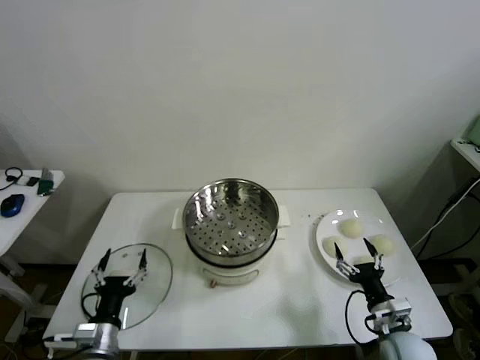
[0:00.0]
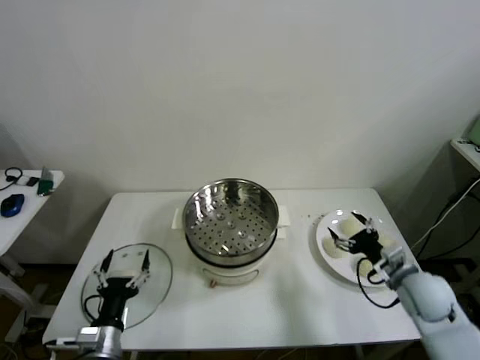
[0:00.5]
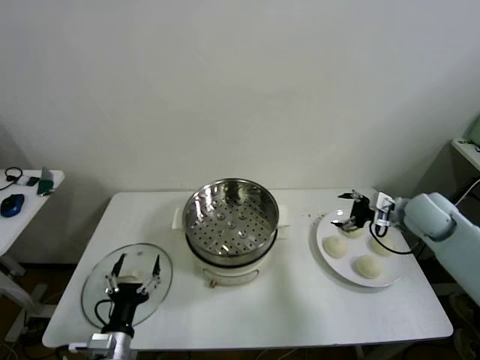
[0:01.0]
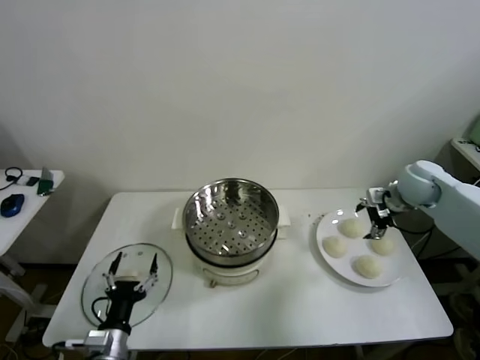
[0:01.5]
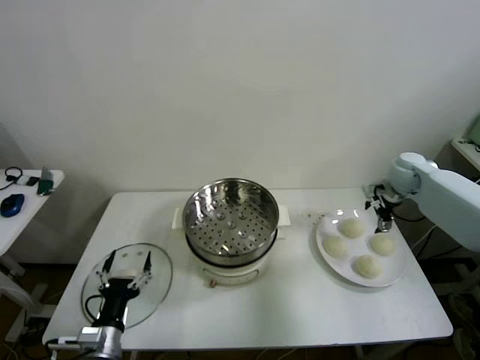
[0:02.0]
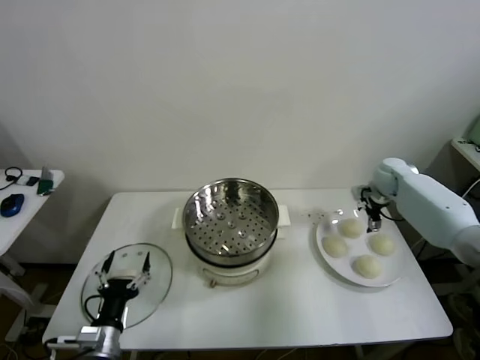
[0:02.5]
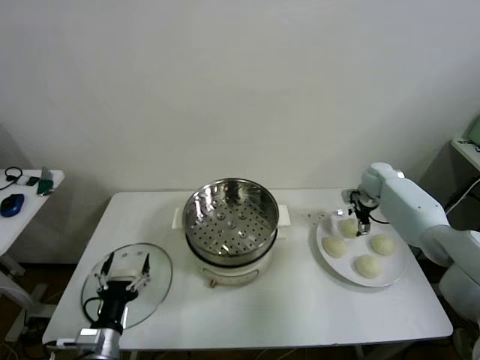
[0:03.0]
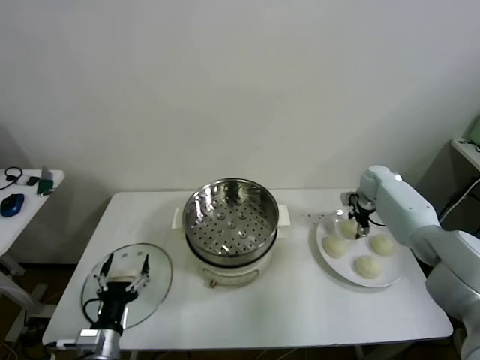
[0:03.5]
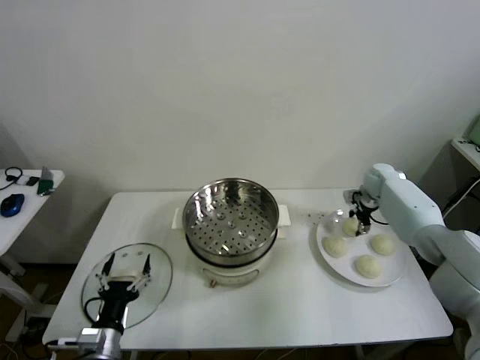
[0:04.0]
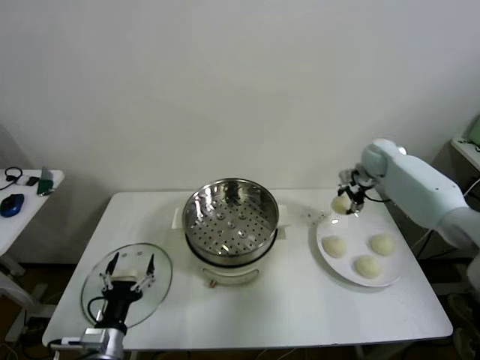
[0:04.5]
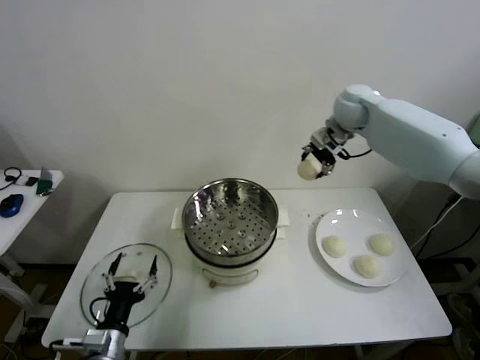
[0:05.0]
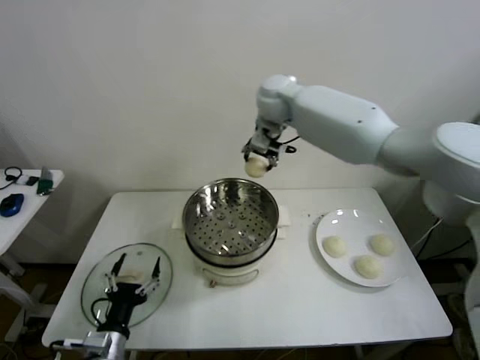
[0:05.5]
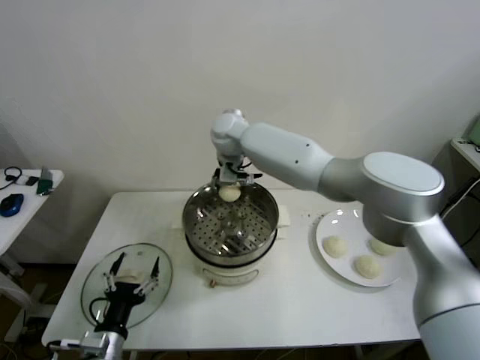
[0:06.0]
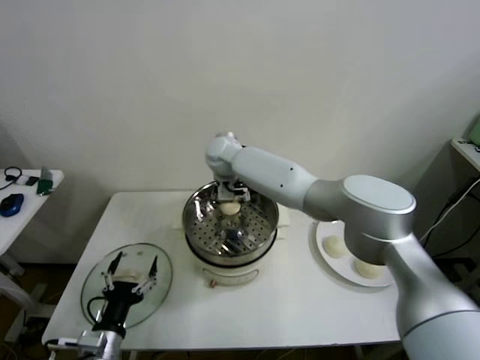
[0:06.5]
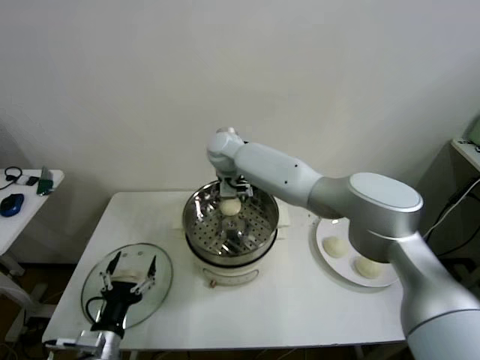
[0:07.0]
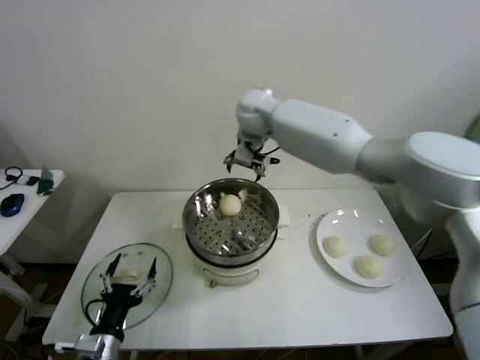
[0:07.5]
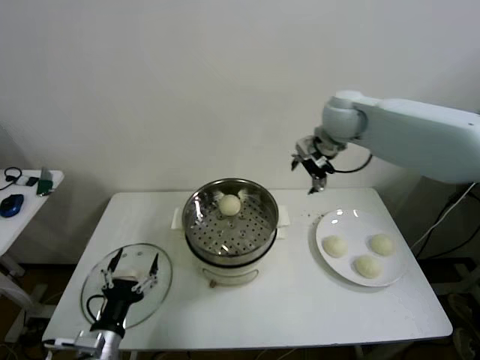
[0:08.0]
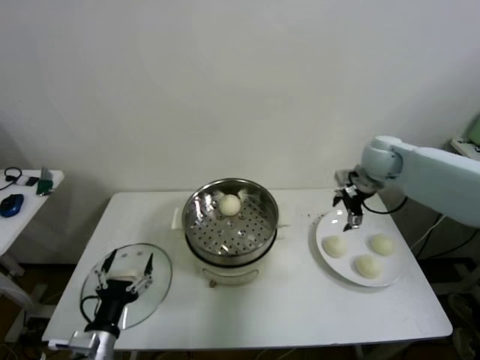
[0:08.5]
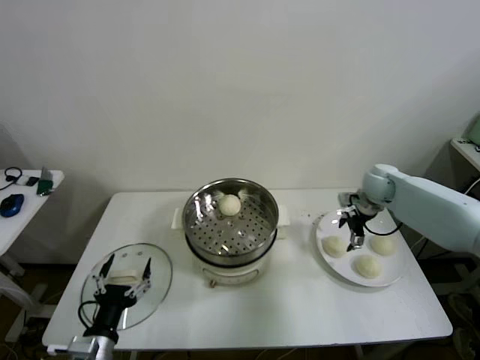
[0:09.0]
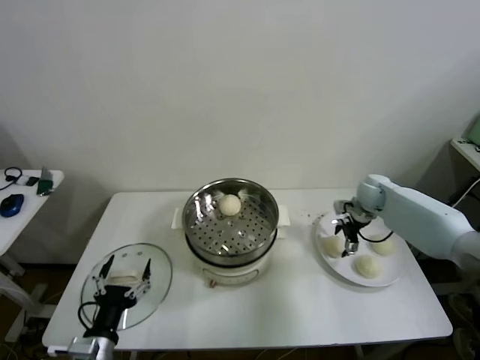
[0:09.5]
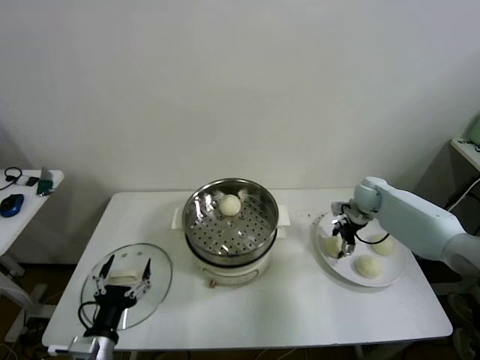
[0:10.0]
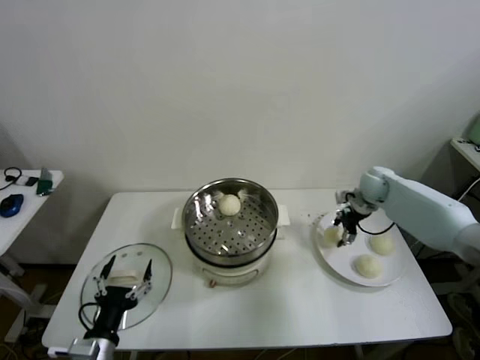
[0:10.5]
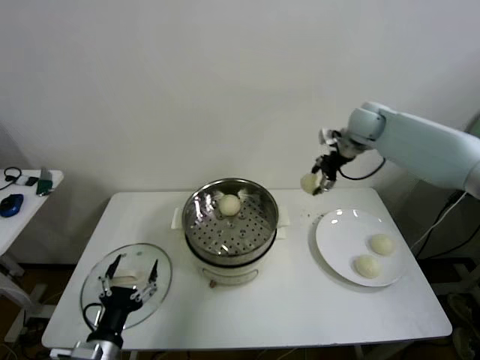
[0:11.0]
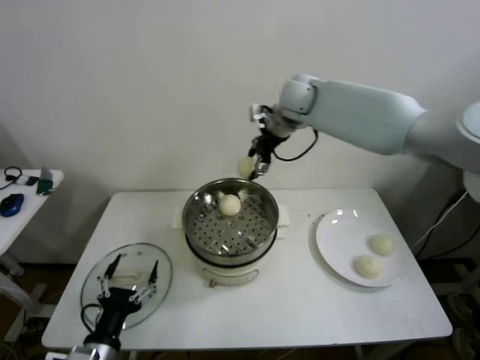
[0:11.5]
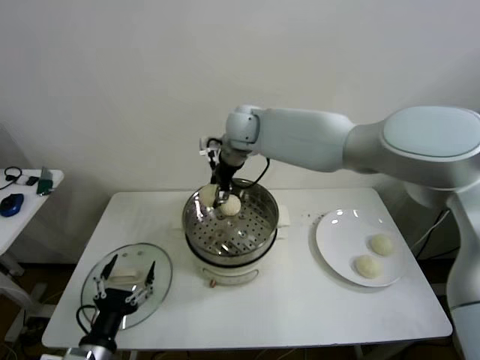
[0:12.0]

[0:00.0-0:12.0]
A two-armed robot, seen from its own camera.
Step, 0:00.0 to 0:03.5: Grasp the baozi in the plate with right gripper.
Step, 0:04.0 to 0:06.5: Place the baozi on the steamer with right gripper.
Step, 0:07.0 to 0:10.0: Grasp the baozi in the plate with right gripper.
0:02.0 to 0:04.0: The right gripper travels downward and forward by approximately 10 cm, and closes its fingers.
0:04.0 to 0:06.0: The right gripper is displaced to the left and upward by roughly 50 cm.
0:06.0 to 0:08.0: The right gripper moves to the right, roughly 25 cm, and opens its fingers.
0:08.0 to 0:10.0: The right gripper goes approximately 30 cm downward and to the right, and closes.
0:10.0 to 0:12.0: The right gripper moves to the left and upward, roughly 40 cm.

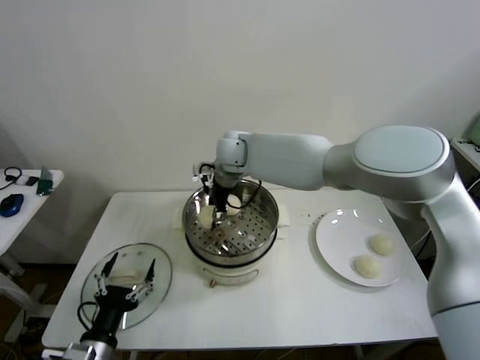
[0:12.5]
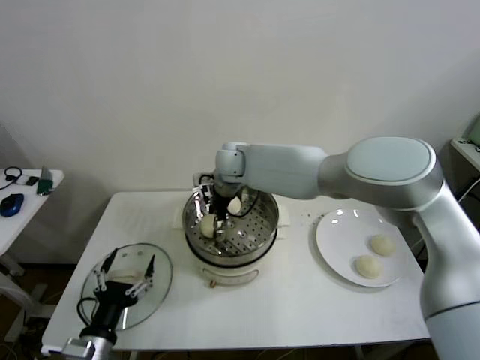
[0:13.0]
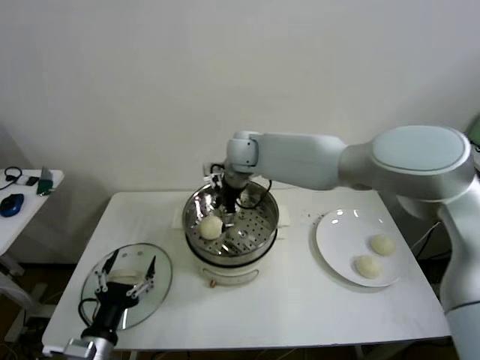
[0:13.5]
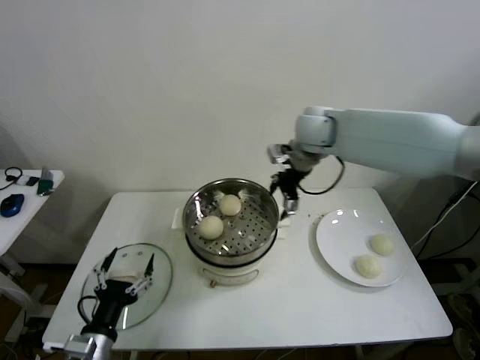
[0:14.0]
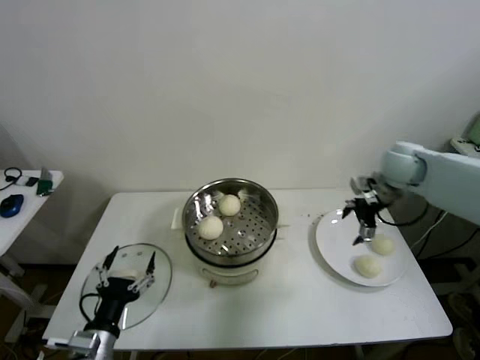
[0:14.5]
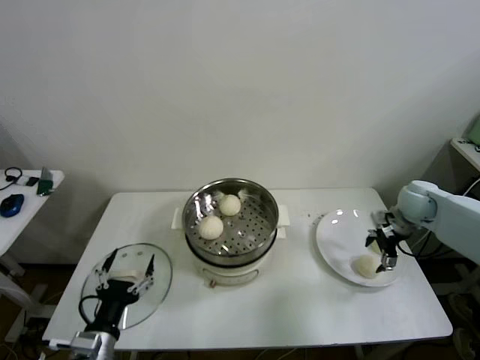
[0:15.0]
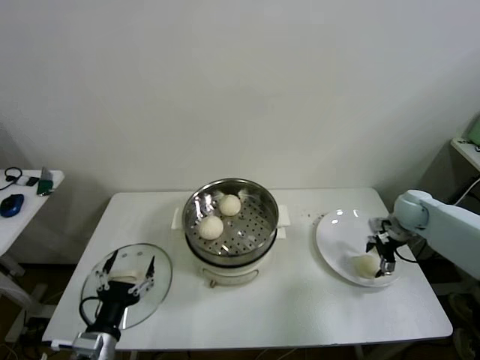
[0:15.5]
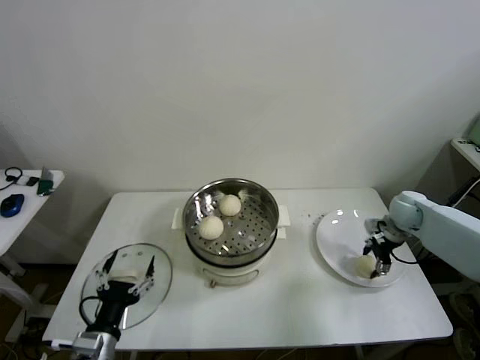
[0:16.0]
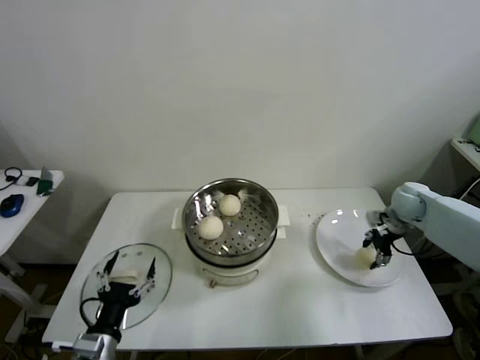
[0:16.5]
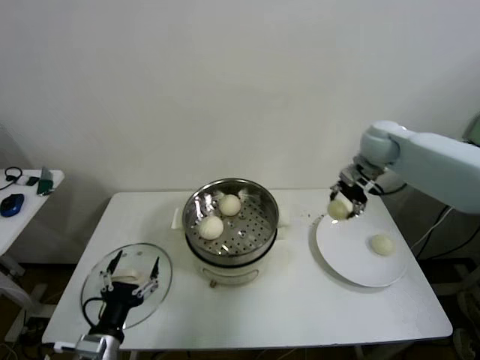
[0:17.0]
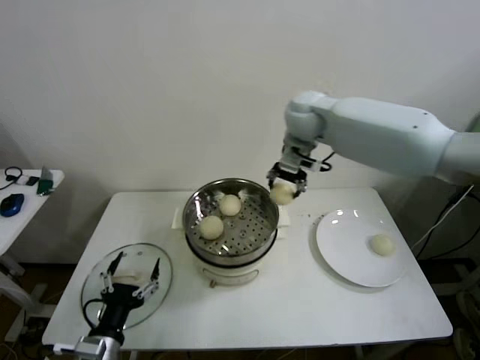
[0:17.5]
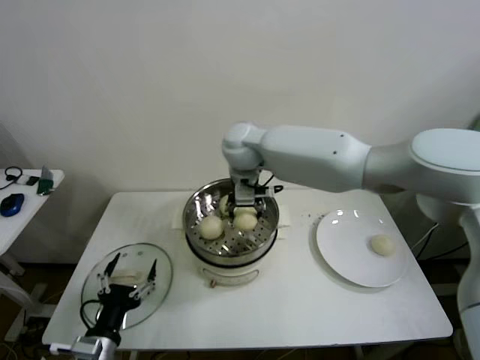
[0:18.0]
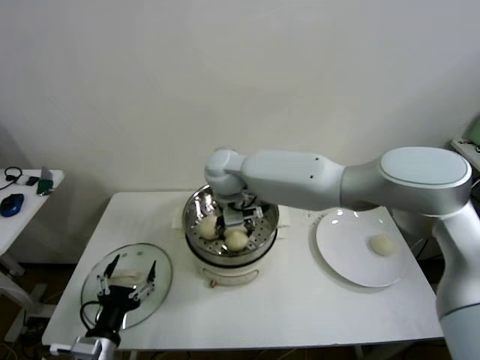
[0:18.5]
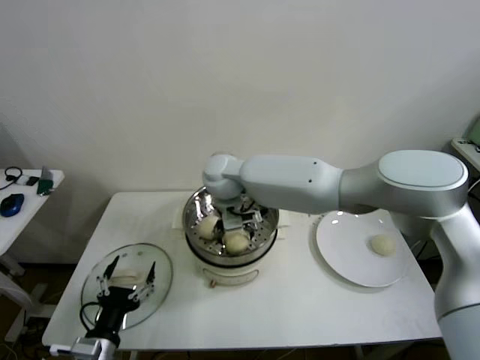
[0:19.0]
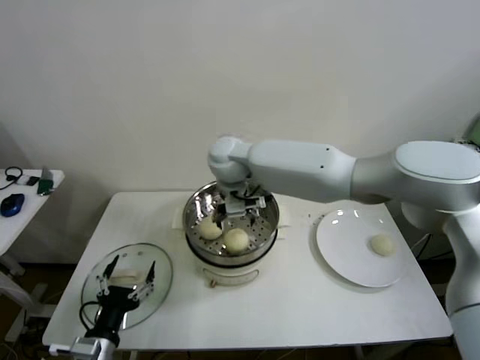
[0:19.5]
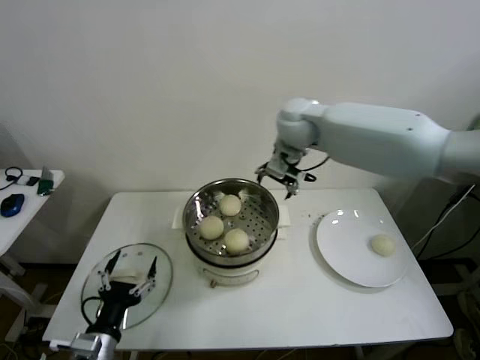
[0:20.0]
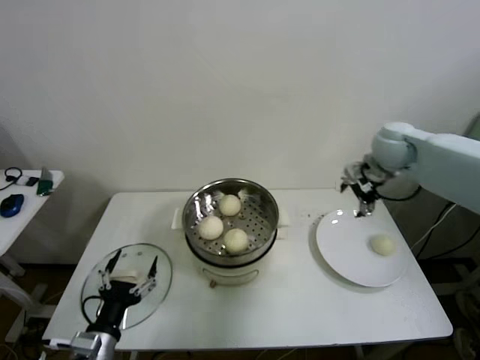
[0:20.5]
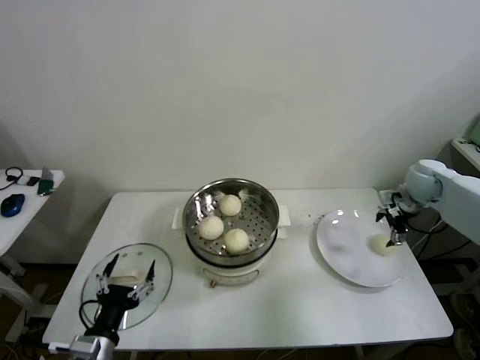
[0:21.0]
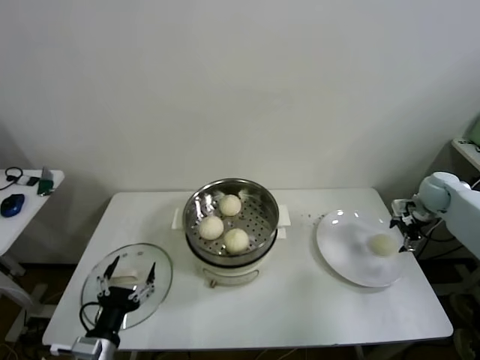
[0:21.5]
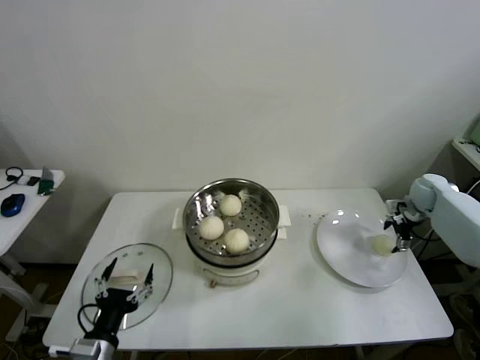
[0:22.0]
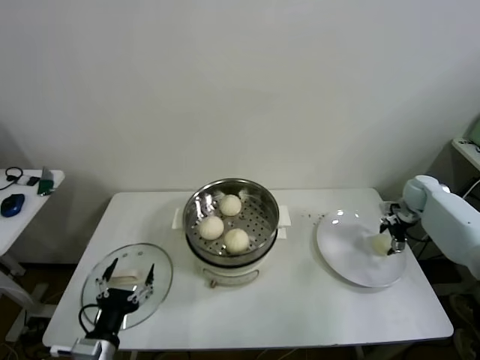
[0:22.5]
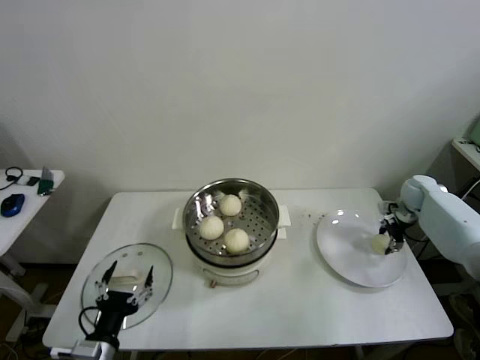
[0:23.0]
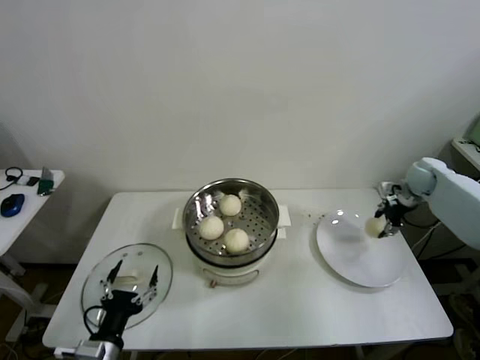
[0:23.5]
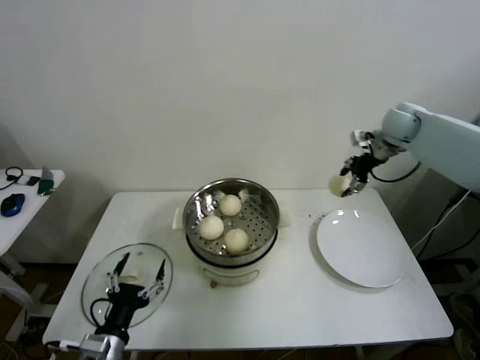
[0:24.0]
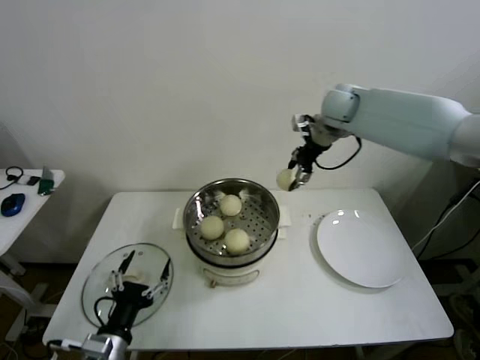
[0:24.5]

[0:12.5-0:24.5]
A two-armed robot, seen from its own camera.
Step, 0:13.5 to 0:16.0: Grasp the baozi in the plate with right gripper.
Step, 0:16.5 to 0:18.5: Place the baozi on the steamer with right gripper.
Step, 0:19.0 to 0:22.5: Grasp the baozi in the plate with right gripper.
0:12.5 to 0:14.5: The right gripper heads to the right, covering about 35 cm, and opens.
0:14.5 to 0:16.5: The right gripper goes roughly 15 cm downward and to the right, and closes up.
0:16.5 to 0:18.5: The right gripper goes about 50 cm to the left.
0:18.5 to 0:20.5: The right gripper travels to the right by roughly 35 cm, and opens its fingers.
0:20.5 to 0:22.5: The right gripper shifts approximately 25 cm downward and to the right.
0:22.5 to 0:24.5: The right gripper is displaced to the left and upward by roughly 35 cm, and closes up.

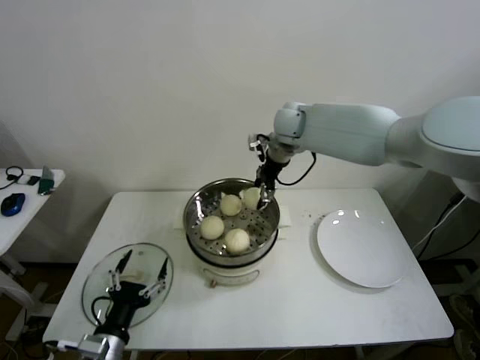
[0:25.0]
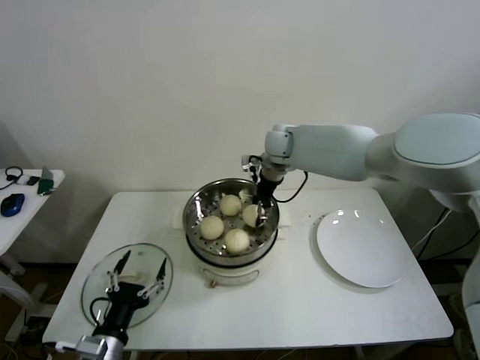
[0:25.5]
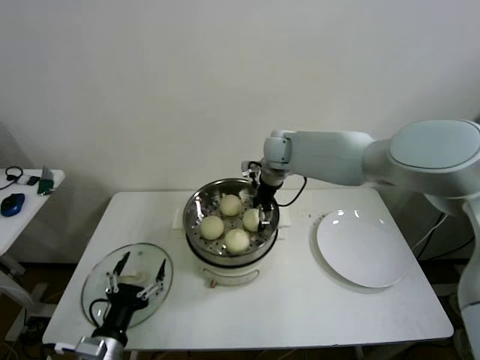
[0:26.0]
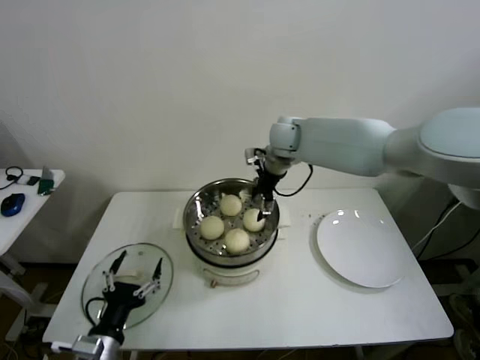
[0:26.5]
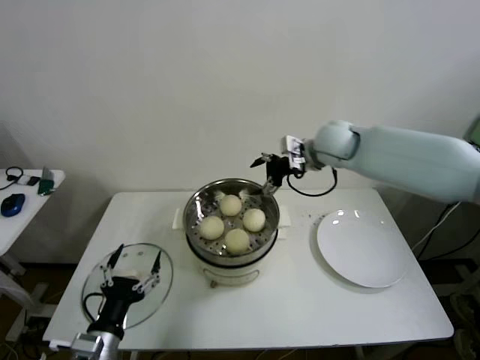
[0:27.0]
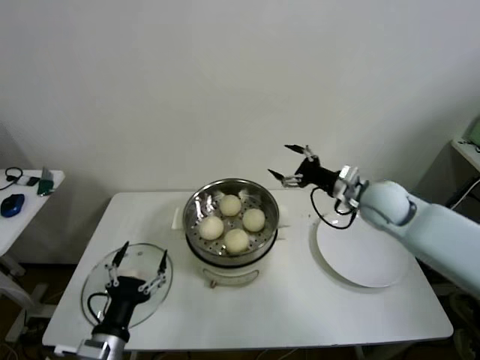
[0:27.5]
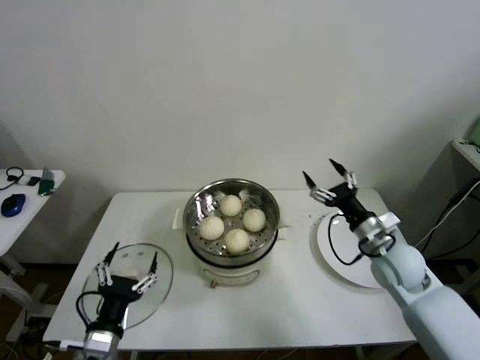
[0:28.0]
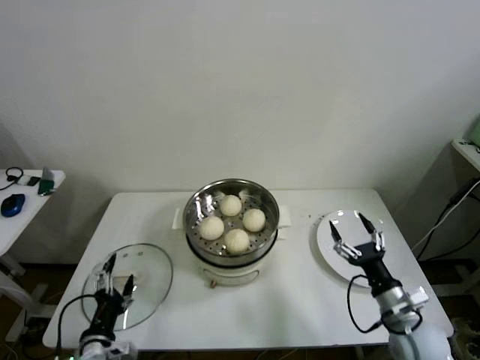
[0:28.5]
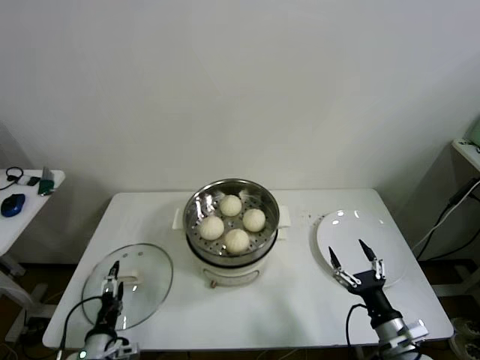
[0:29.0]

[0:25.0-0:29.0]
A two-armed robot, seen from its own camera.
0:25.0 to 0:27.0: The right gripper heads to the right and backward, covering roughly 10 cm, and opens its fingers.
0:27.0 to 0:29.0: The right gripper heads backward and downward, covering roughly 50 cm, while the left gripper is displaced downward by approximately 10 cm.
